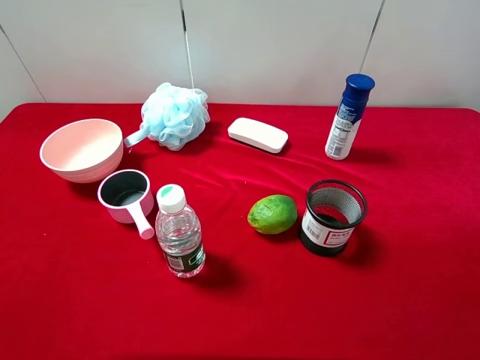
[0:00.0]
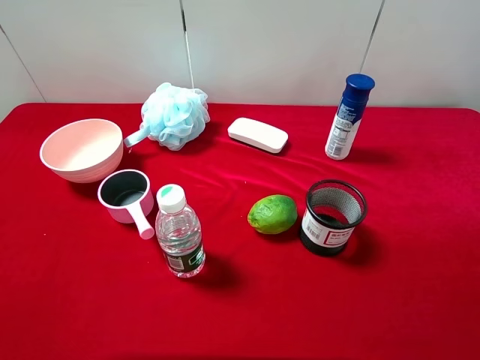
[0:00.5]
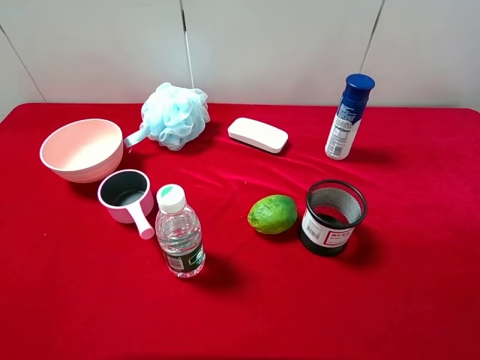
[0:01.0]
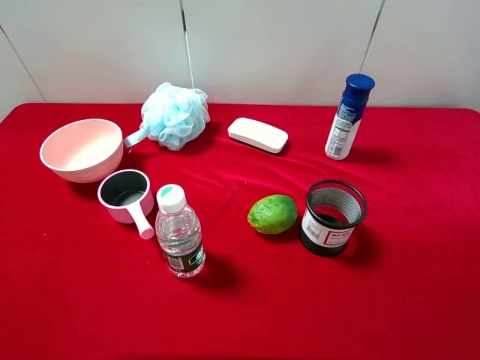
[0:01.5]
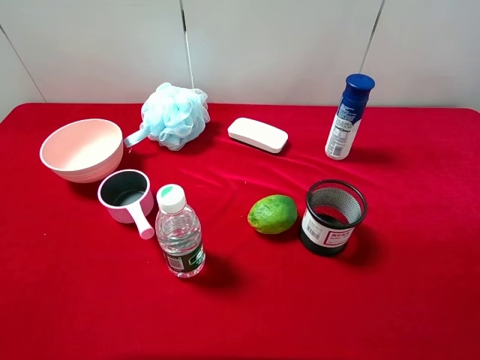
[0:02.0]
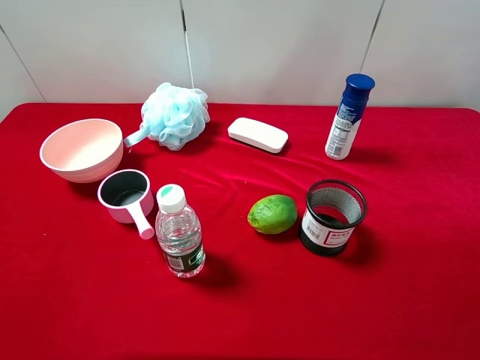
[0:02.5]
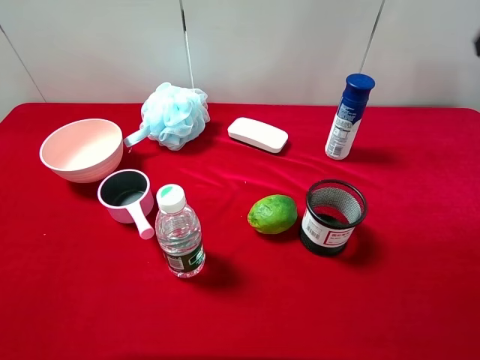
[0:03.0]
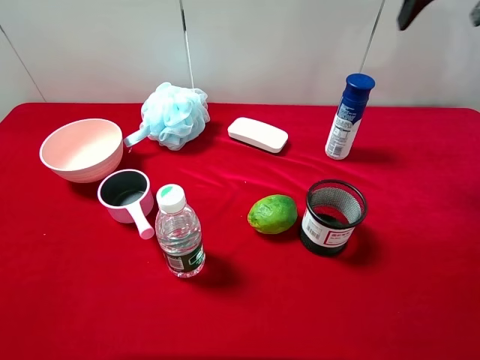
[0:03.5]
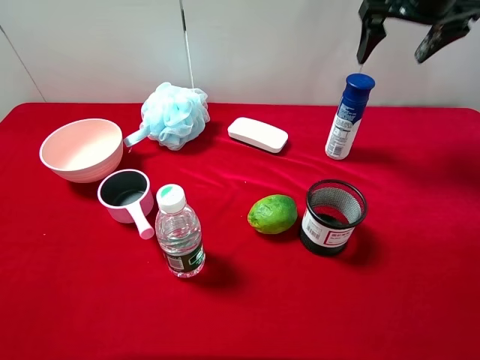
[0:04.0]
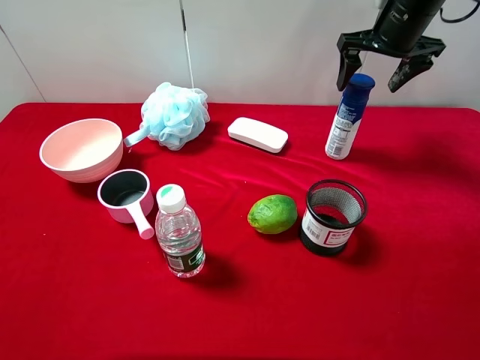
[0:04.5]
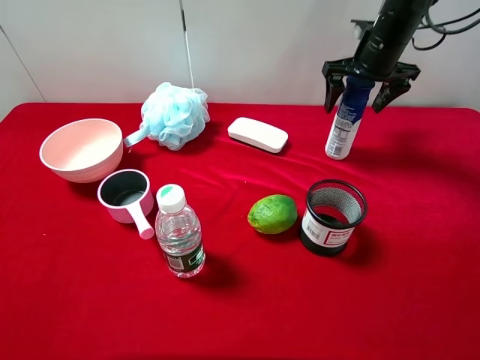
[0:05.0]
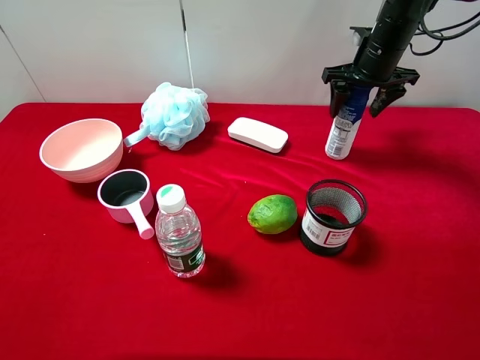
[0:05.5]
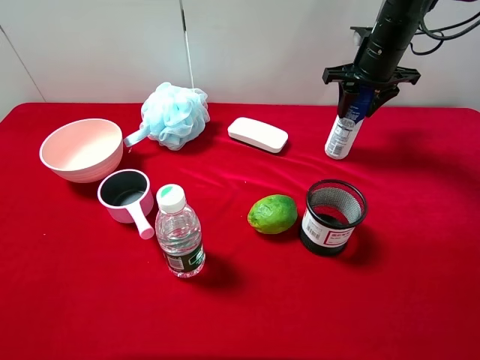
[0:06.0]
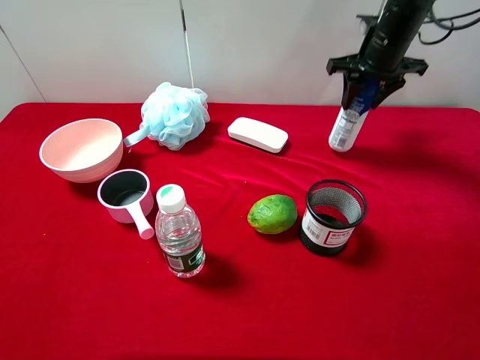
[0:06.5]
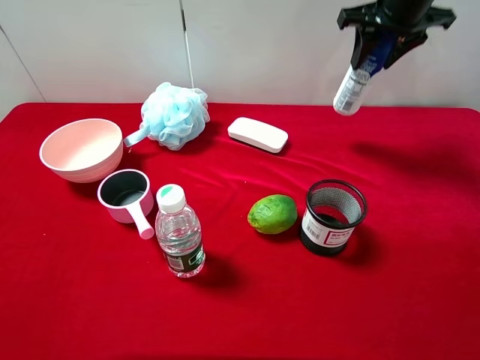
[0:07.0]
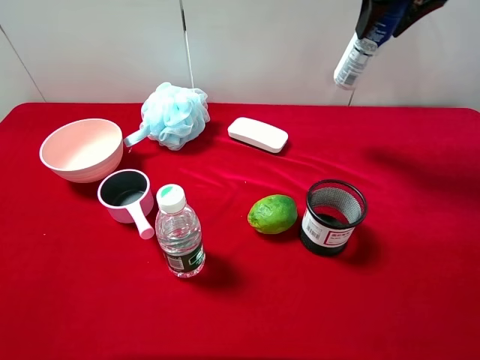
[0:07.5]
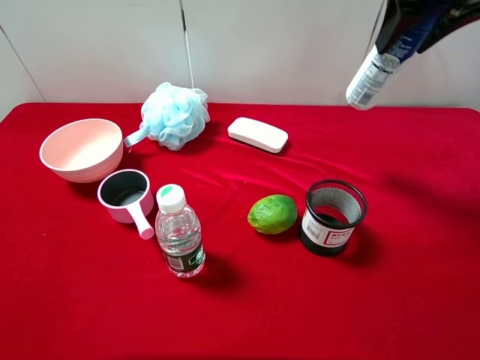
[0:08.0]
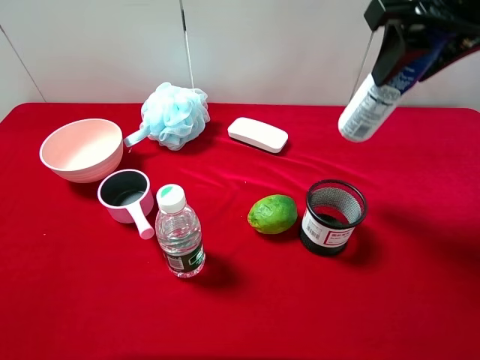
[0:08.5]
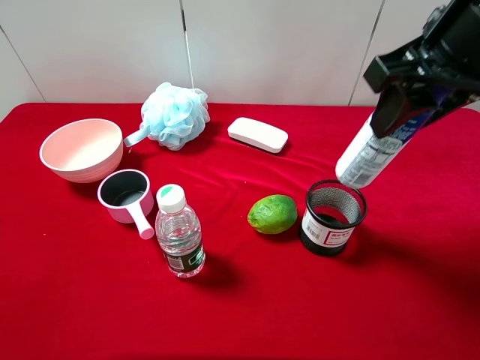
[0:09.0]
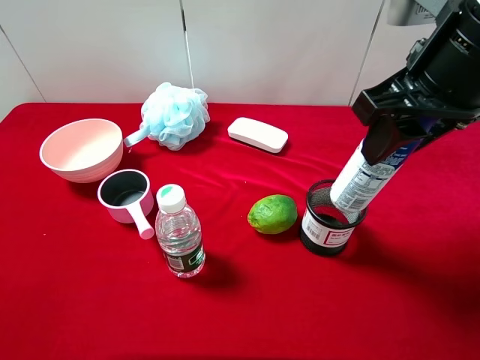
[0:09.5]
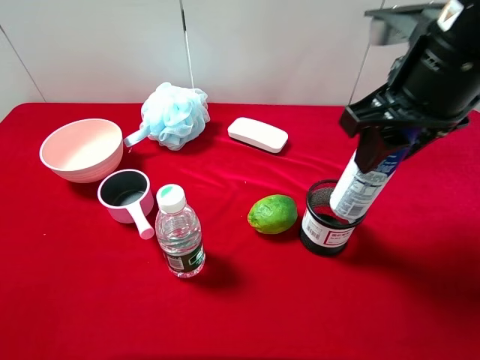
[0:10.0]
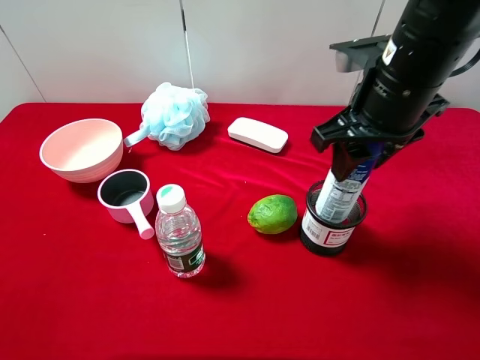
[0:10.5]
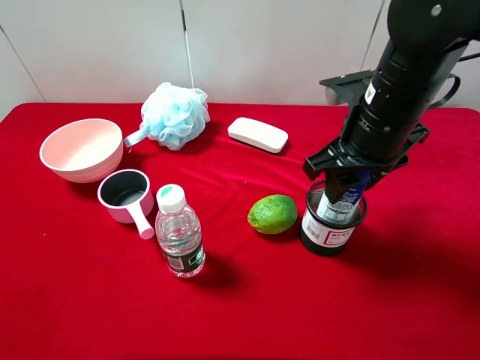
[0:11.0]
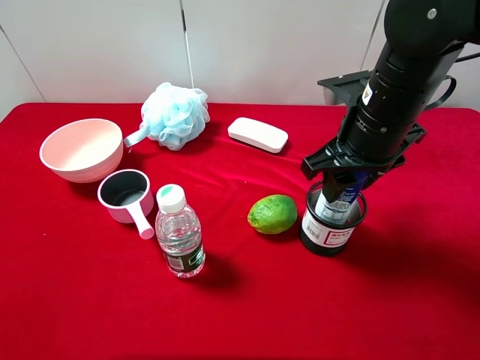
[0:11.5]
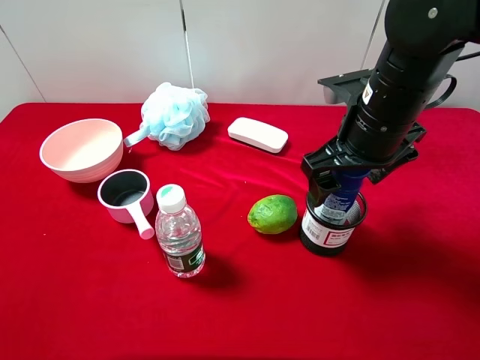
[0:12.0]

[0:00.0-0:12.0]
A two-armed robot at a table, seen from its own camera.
Task of the whole recording: pick up an item with a gripper and place it in a random container on the desktop.
0:02.0 to 0:04.0: The right gripper is displaced forward by approximately 40 cm.
0:04.0 to 0:06.0: The right gripper goes approximately 10 cm downward, and closes.
0:06.0 to 0:08.0: The right gripper moves upward and backward, approximately 20 cm.
0:08.0 to 0:10.0: The right gripper is displaced backward and downward by approximately 10 cm.
0:10.0 to 0:12.0: The right gripper shifts approximately 10 cm downward, and opens up.

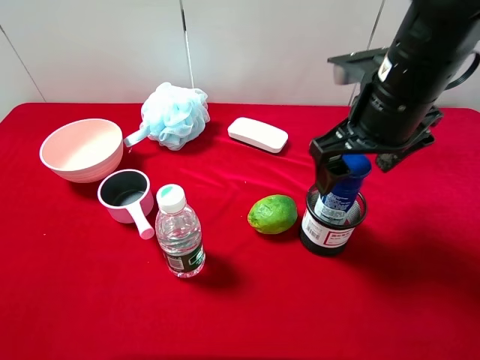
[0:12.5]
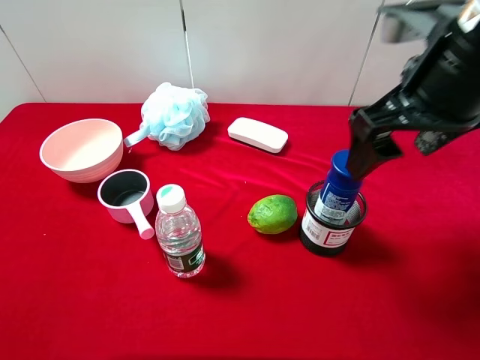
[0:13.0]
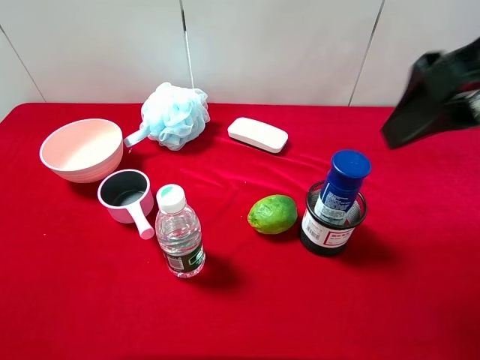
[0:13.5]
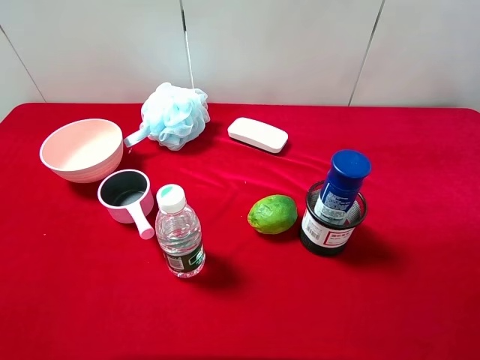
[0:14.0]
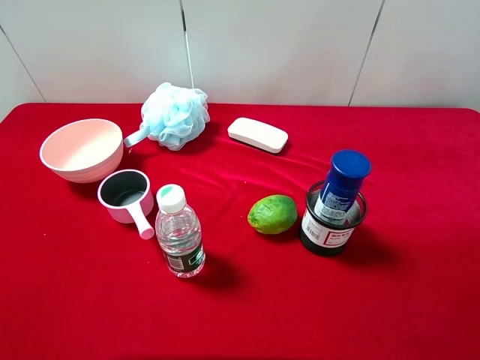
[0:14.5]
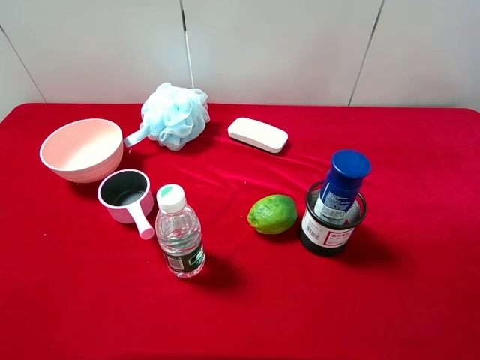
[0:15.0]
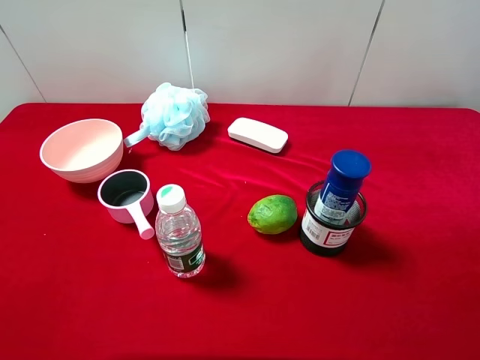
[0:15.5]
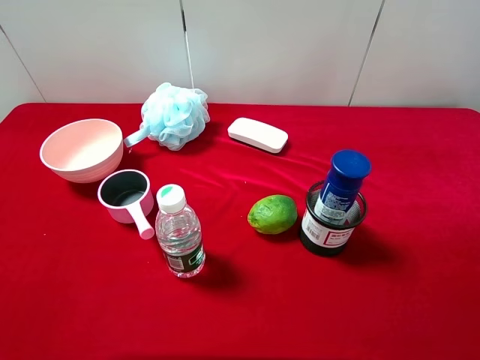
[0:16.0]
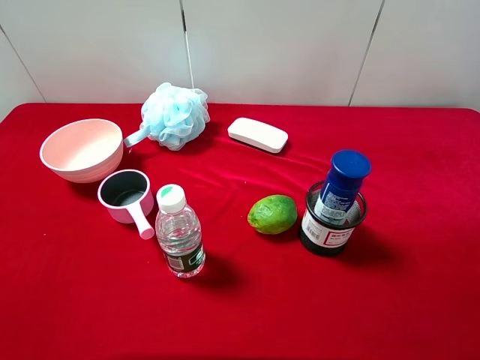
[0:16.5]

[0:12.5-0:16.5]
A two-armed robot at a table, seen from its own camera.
Task of the whole recording: pick up an item with a gripper and place it in a random container on the desktop.
0:12.5 to 0:14.5: The right gripper is displaced backward, to the right and upward by some 25 cm.
